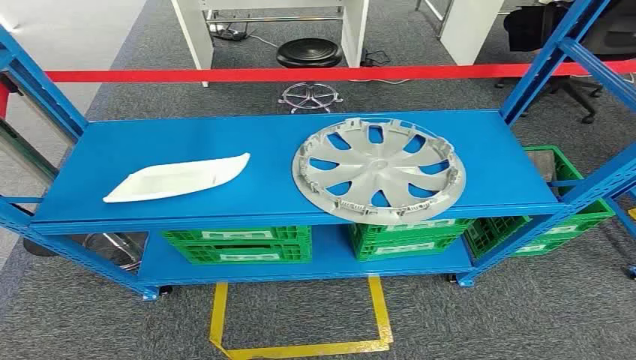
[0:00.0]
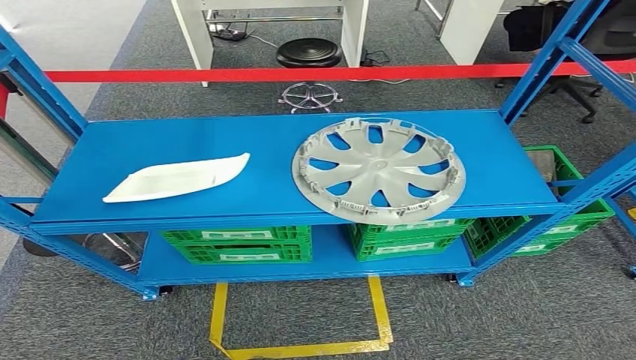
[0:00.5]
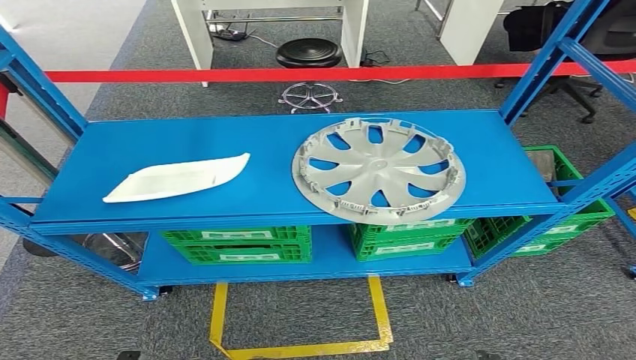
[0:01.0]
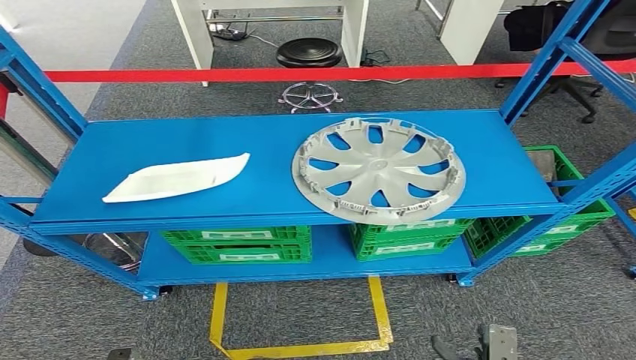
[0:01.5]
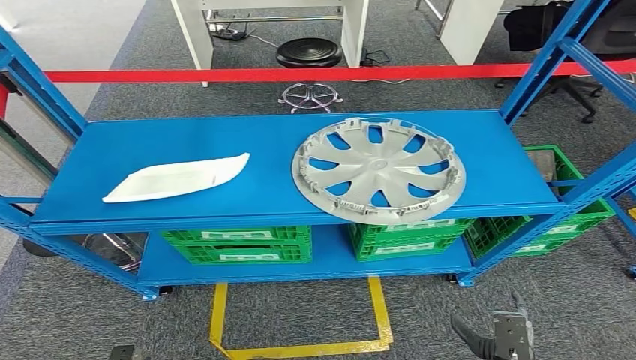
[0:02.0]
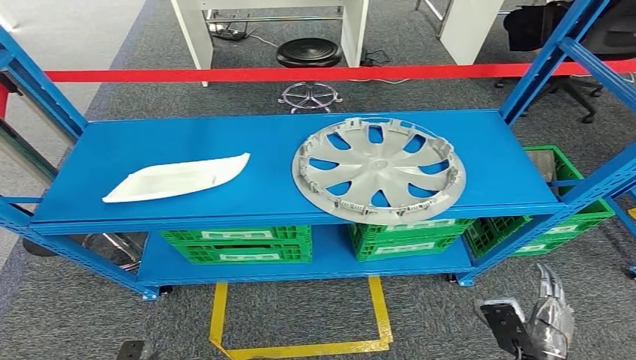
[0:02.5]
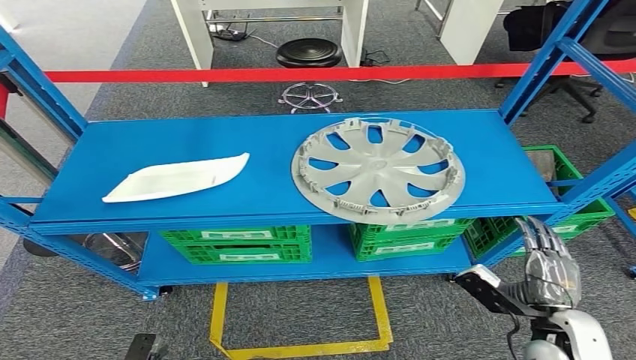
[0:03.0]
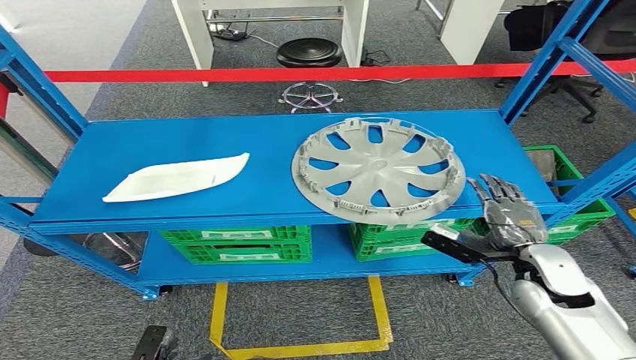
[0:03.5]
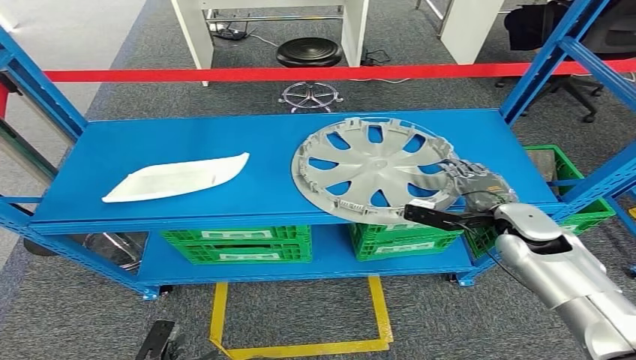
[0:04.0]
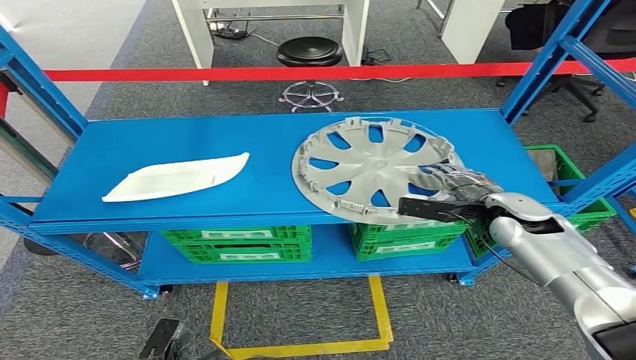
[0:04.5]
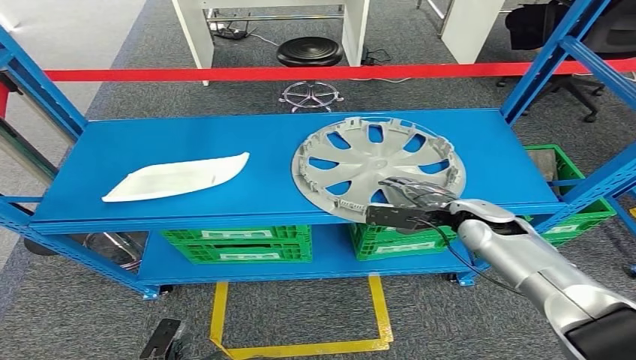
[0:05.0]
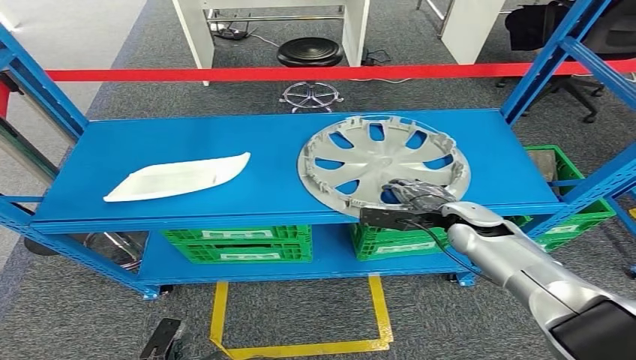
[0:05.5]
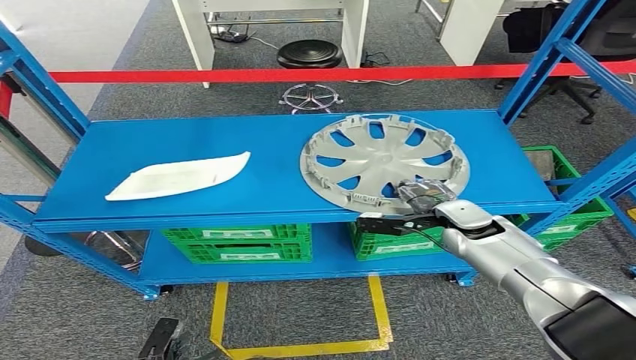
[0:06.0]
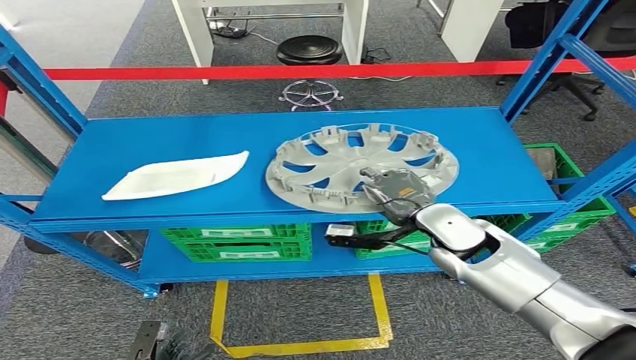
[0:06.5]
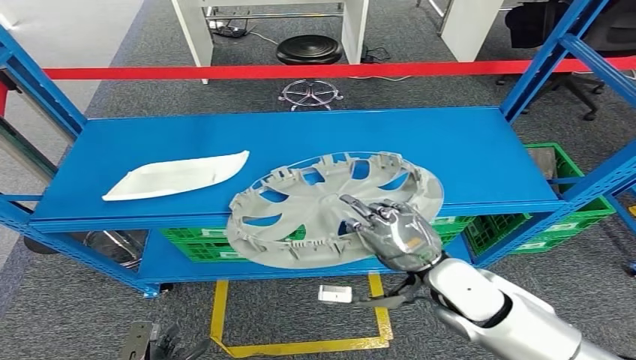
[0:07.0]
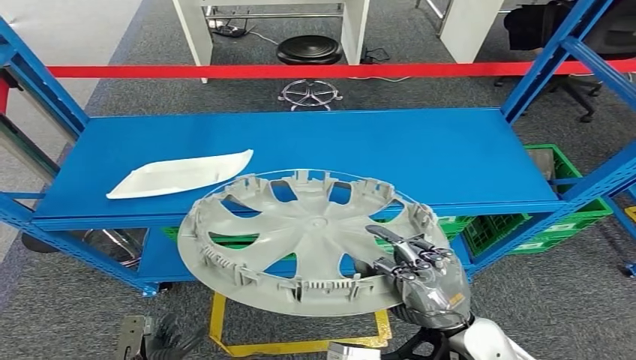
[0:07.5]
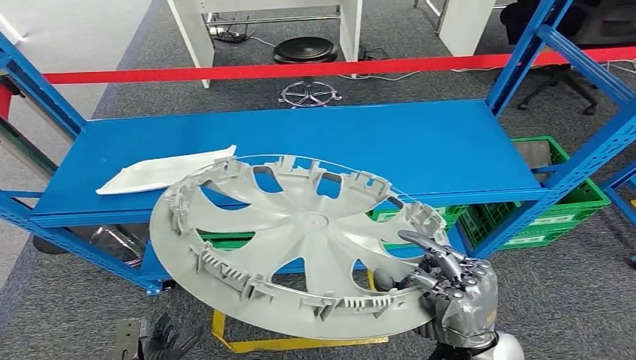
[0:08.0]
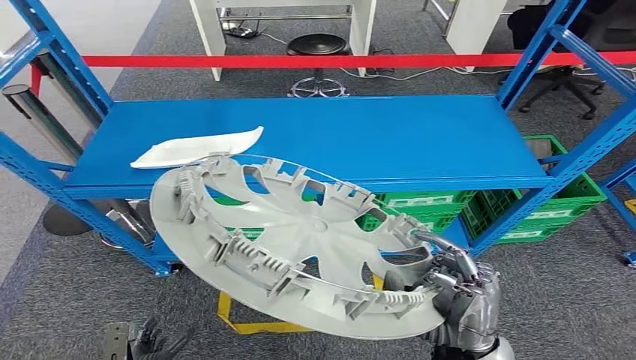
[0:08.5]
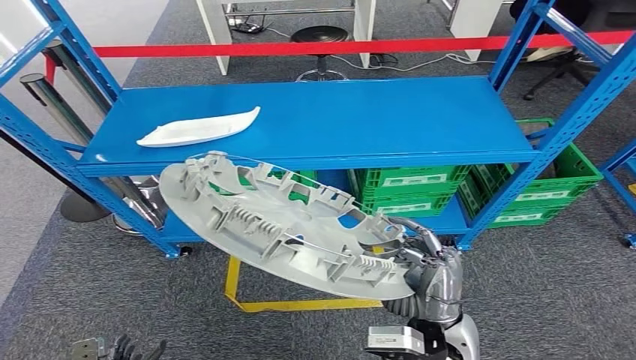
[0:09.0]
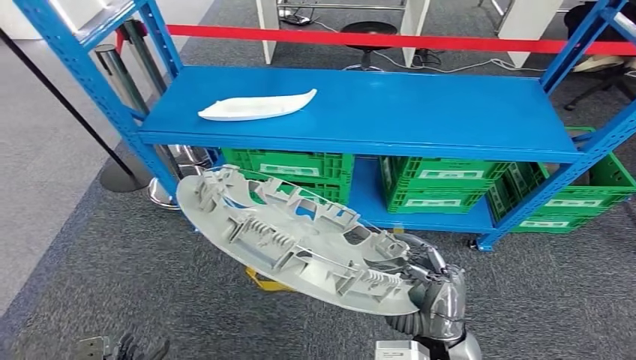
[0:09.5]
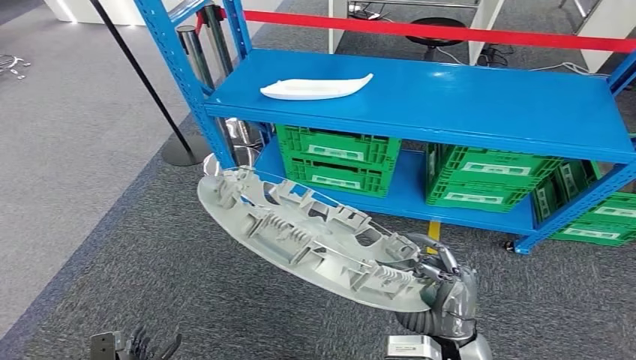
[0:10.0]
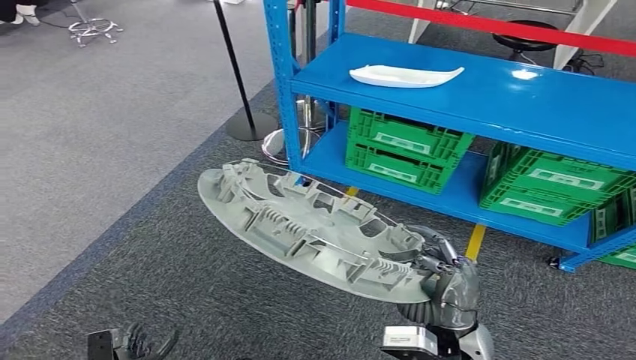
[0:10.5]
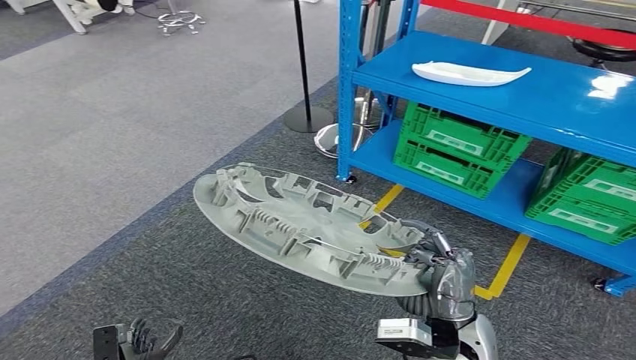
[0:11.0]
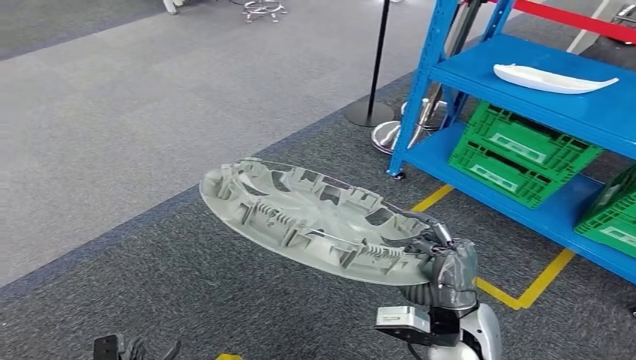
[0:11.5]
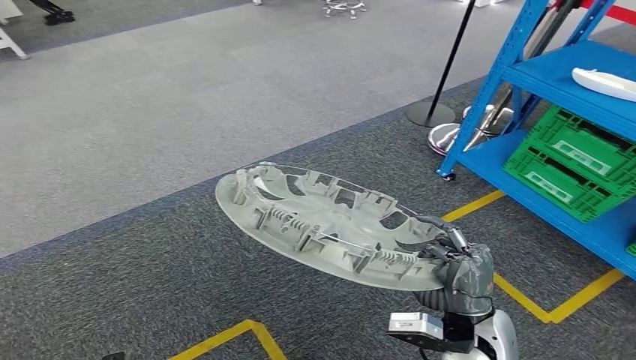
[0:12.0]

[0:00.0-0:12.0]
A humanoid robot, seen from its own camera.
Step, 0:00.0 to 0:07.5: Pick up the small component from the shelf.
0:02.0 to 0:04.0: The right hand heads forward and upward, covering about 35 cm. The left hand shifts some 5 cm forward.
0:04.0 to 0:06.0: The right hand travels to the left by some 5 cm.

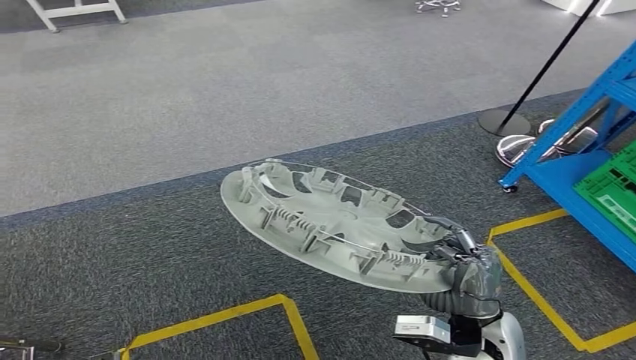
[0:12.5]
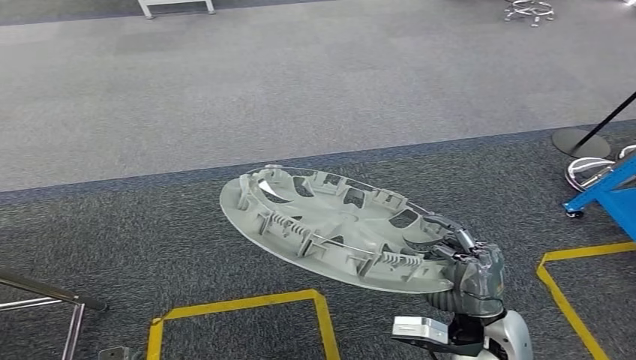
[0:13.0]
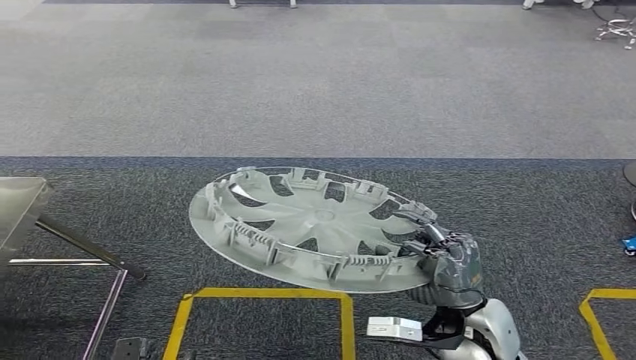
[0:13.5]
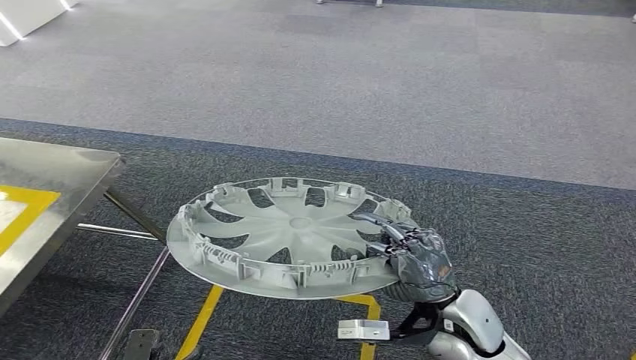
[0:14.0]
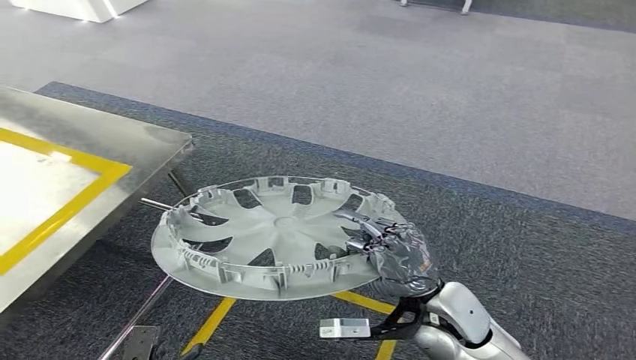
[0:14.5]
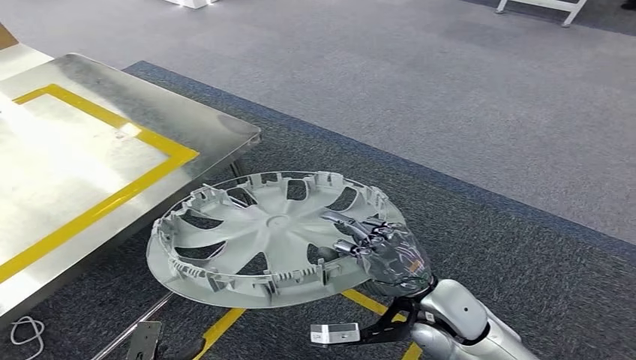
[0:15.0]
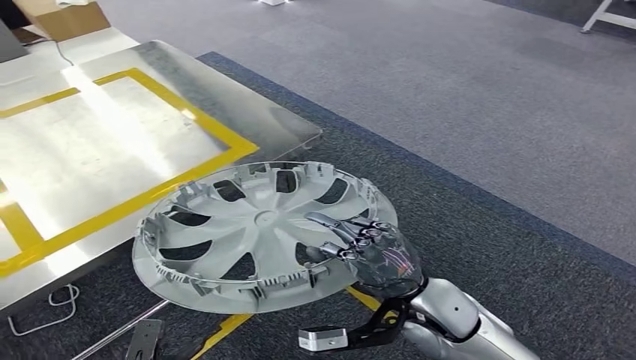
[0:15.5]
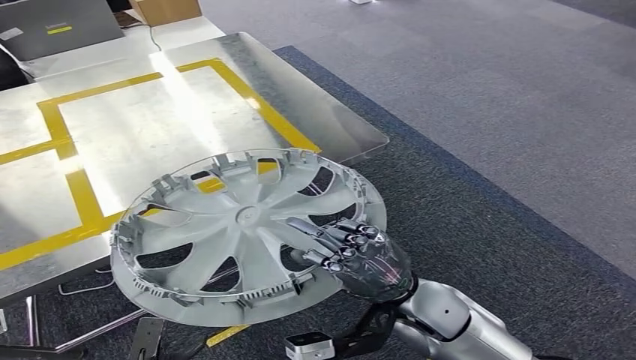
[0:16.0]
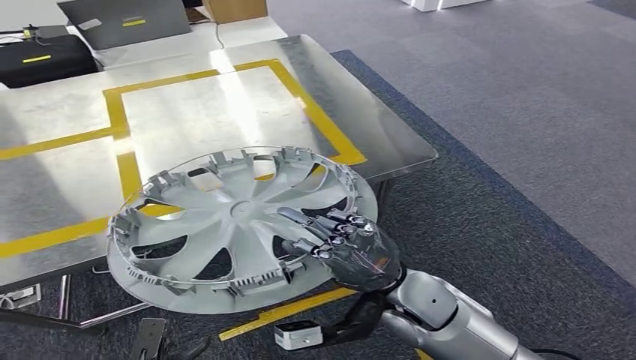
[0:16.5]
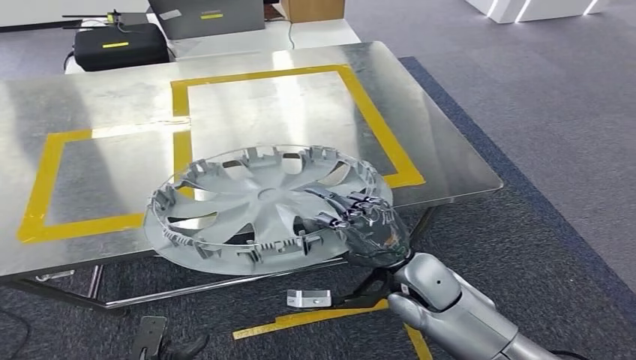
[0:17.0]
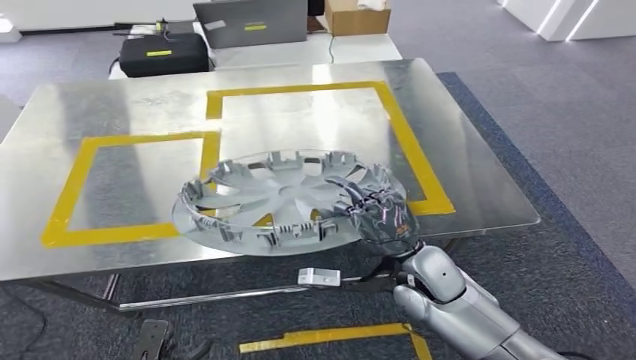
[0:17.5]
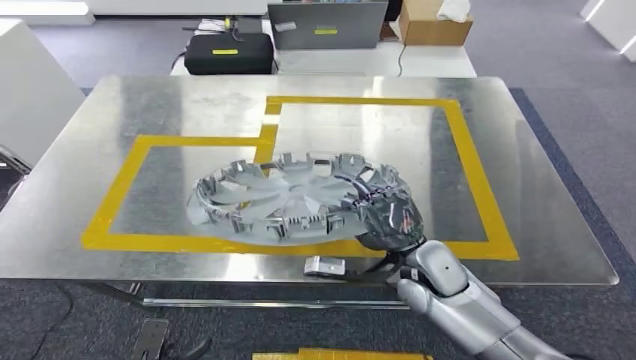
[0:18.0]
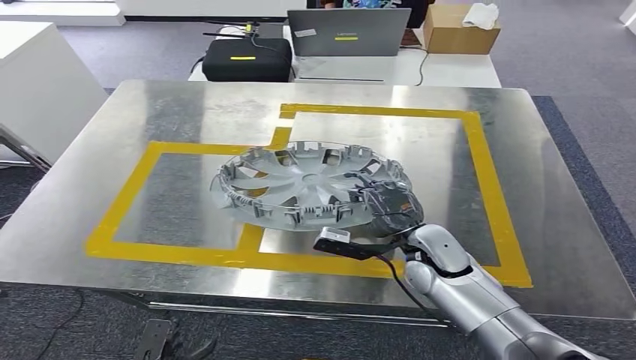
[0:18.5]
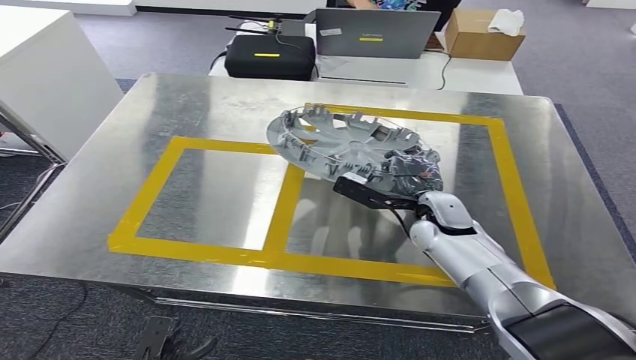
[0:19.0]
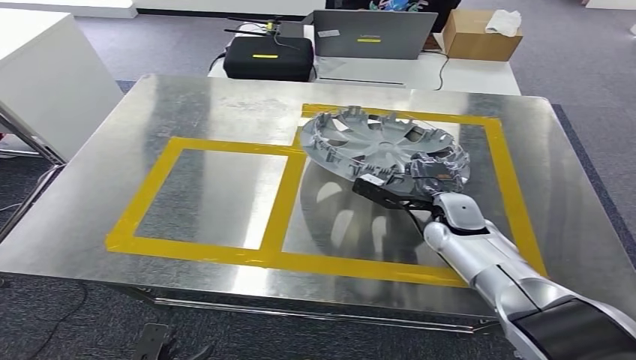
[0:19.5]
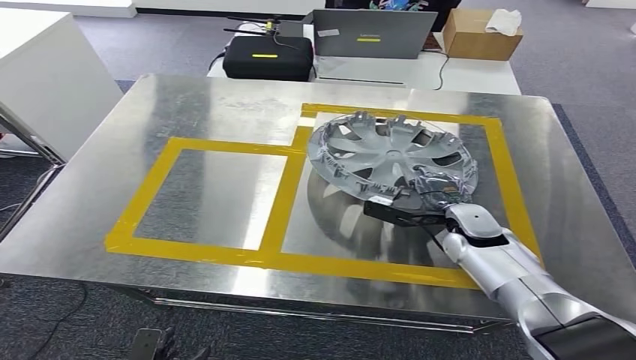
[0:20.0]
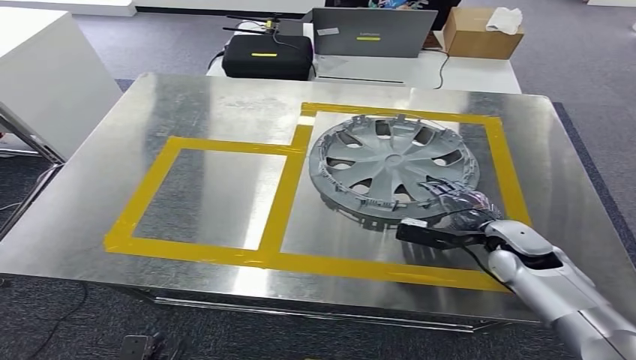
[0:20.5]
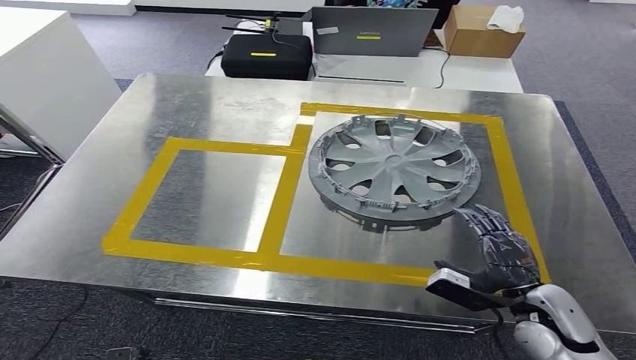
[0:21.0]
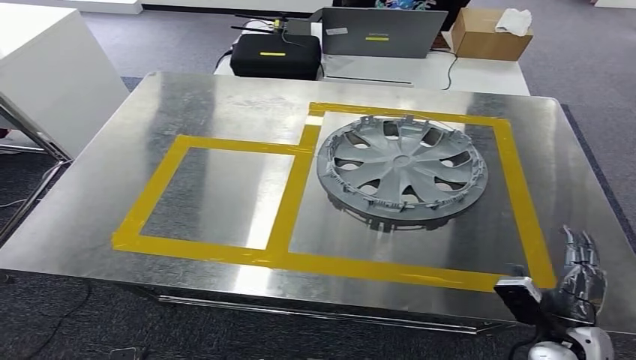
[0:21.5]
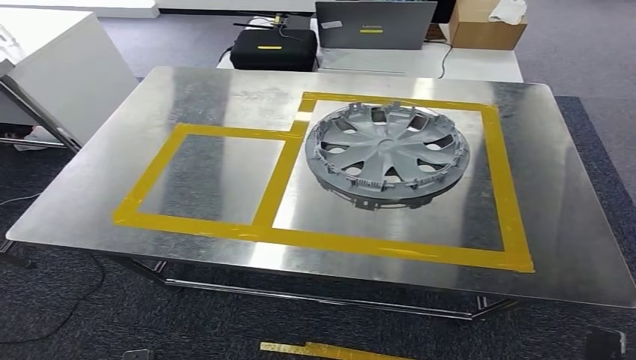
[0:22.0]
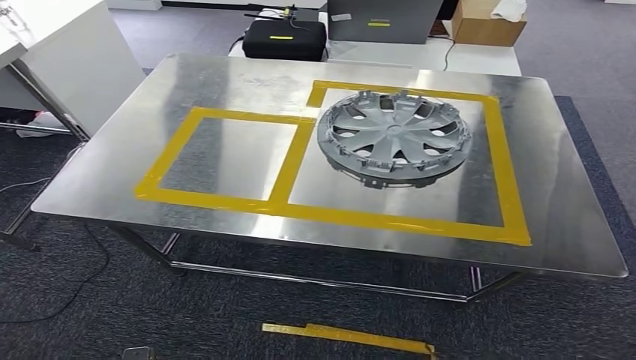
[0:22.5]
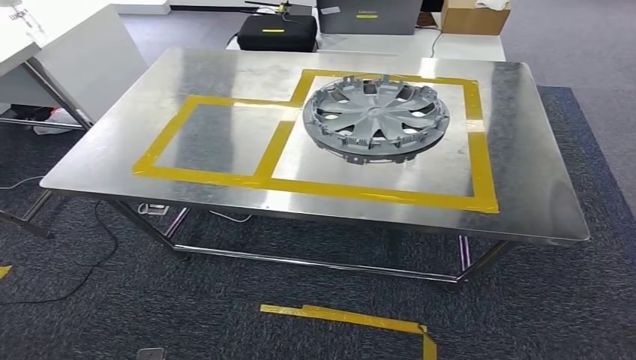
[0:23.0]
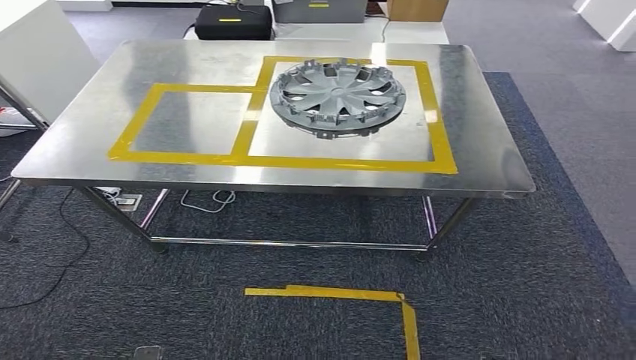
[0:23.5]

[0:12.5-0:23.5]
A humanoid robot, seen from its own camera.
Step, 0:12.5 to 0:16.5: Move the small component to the workbench.
